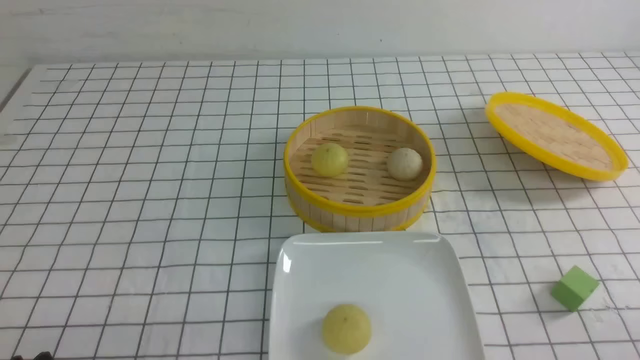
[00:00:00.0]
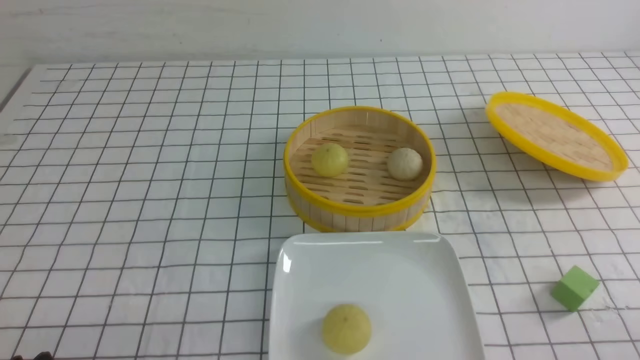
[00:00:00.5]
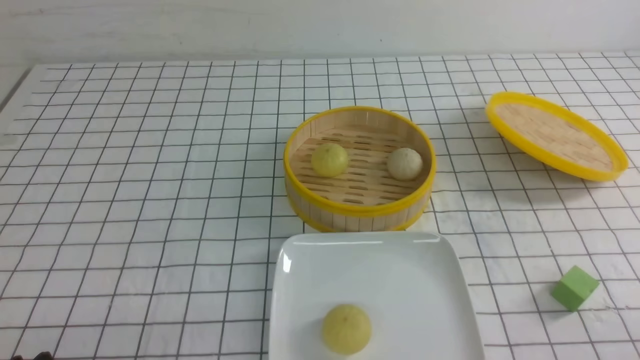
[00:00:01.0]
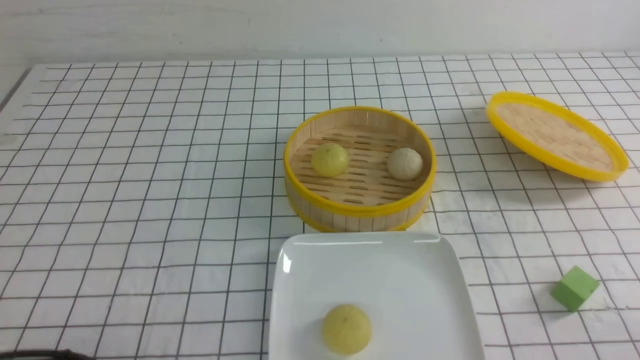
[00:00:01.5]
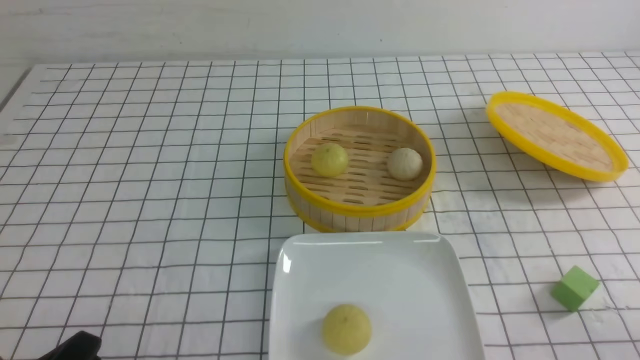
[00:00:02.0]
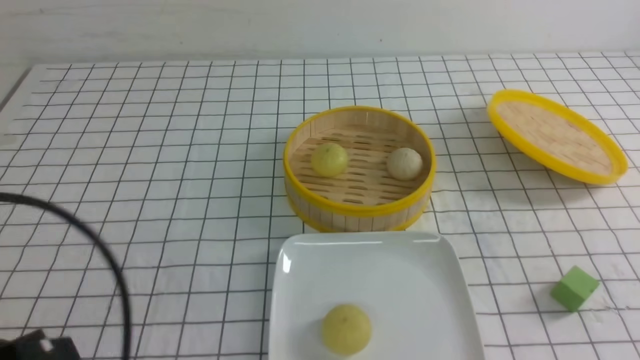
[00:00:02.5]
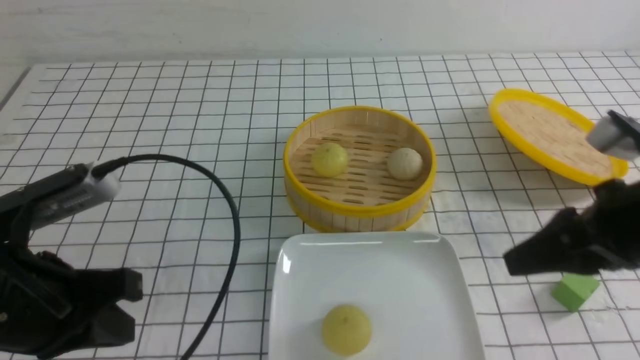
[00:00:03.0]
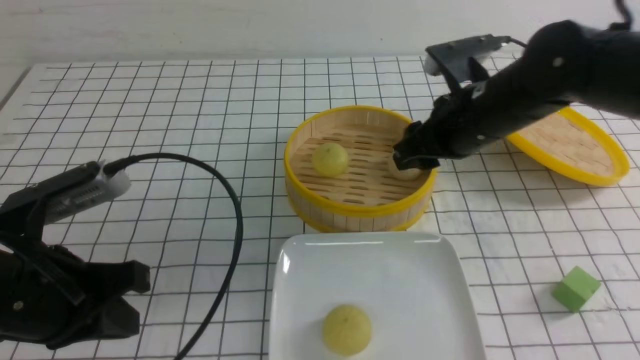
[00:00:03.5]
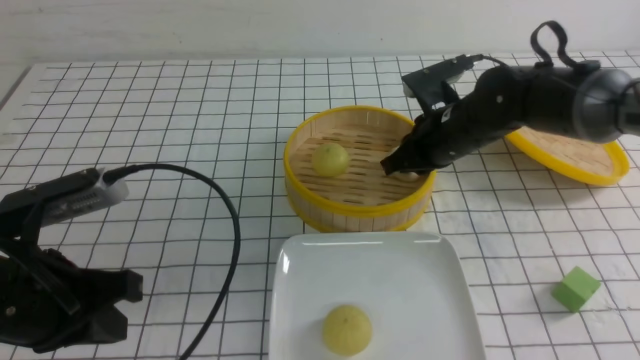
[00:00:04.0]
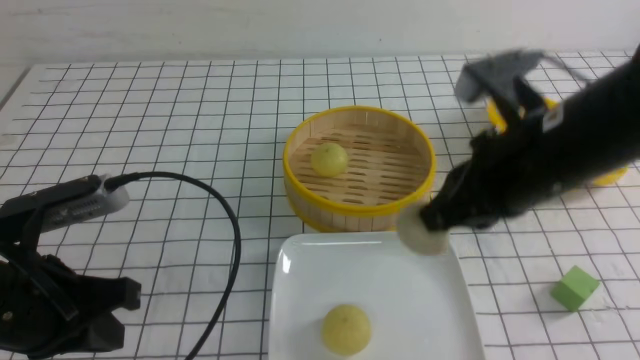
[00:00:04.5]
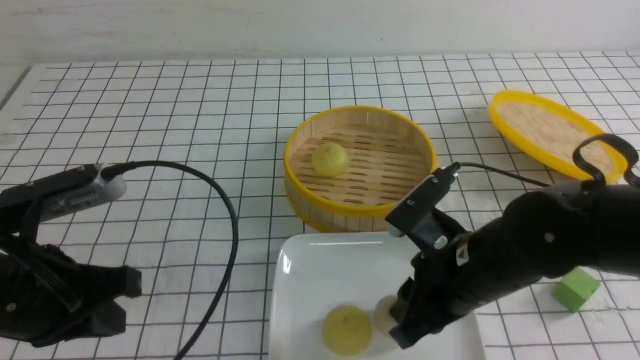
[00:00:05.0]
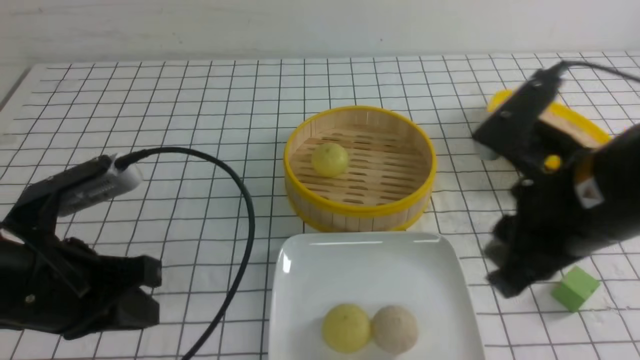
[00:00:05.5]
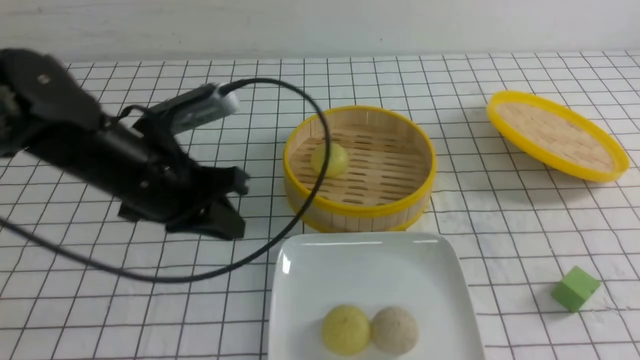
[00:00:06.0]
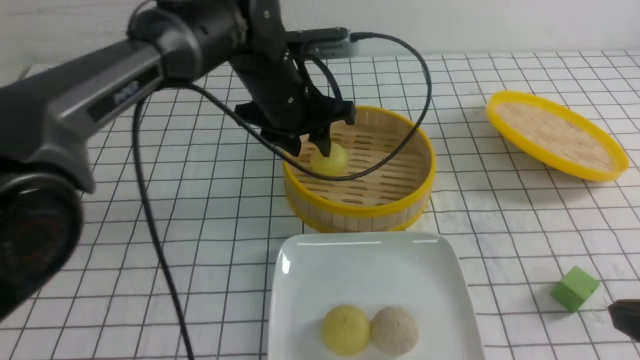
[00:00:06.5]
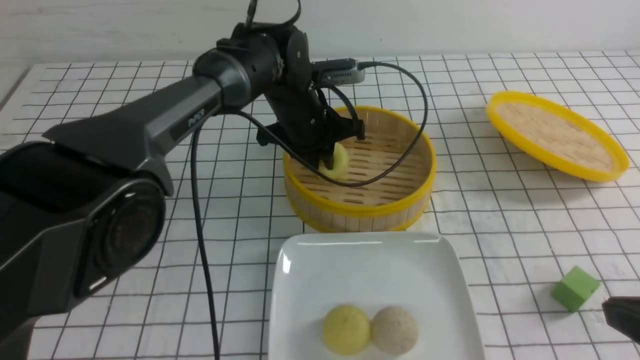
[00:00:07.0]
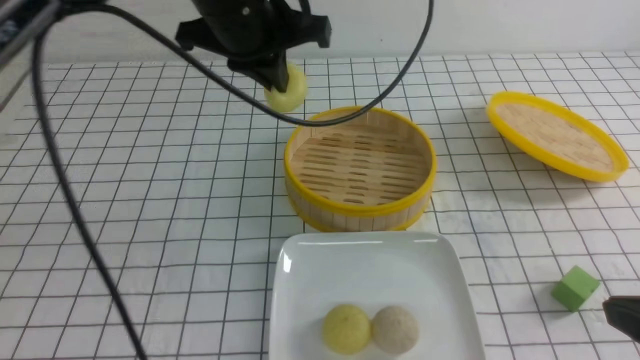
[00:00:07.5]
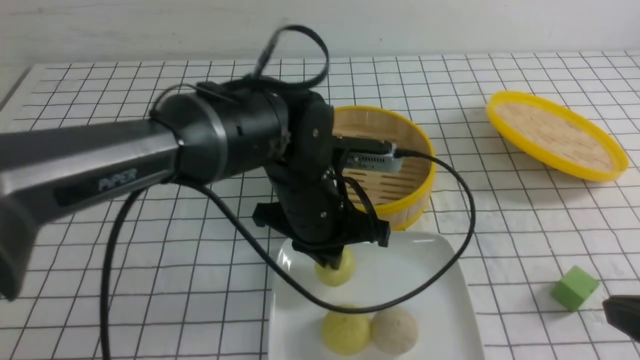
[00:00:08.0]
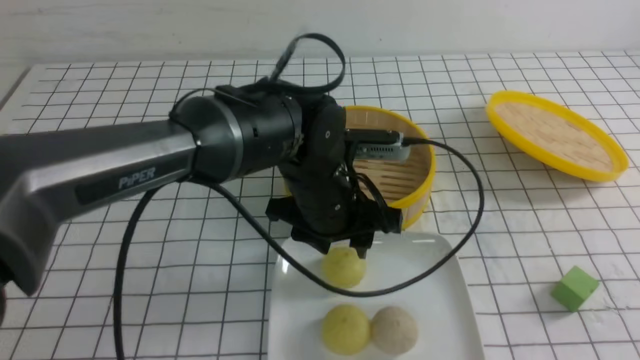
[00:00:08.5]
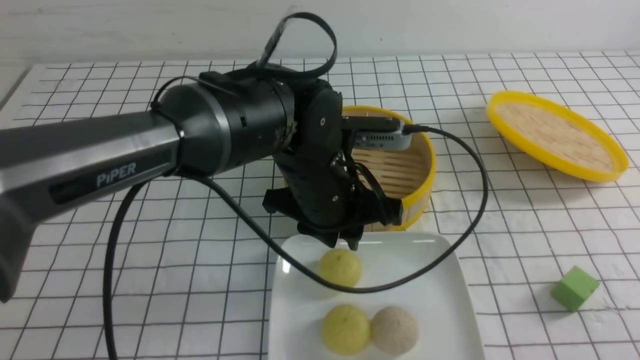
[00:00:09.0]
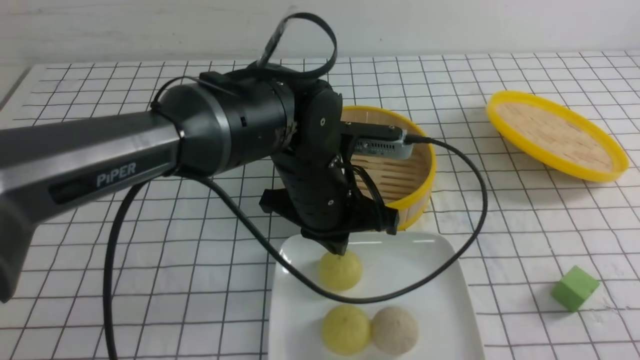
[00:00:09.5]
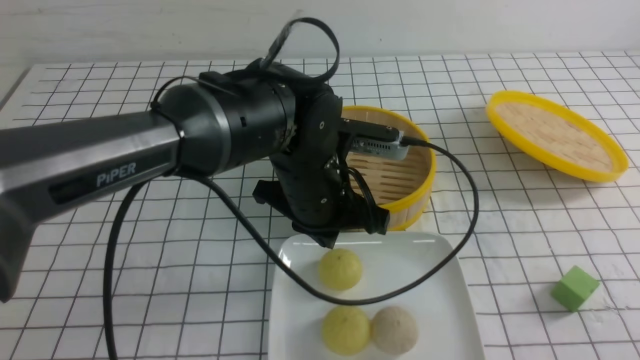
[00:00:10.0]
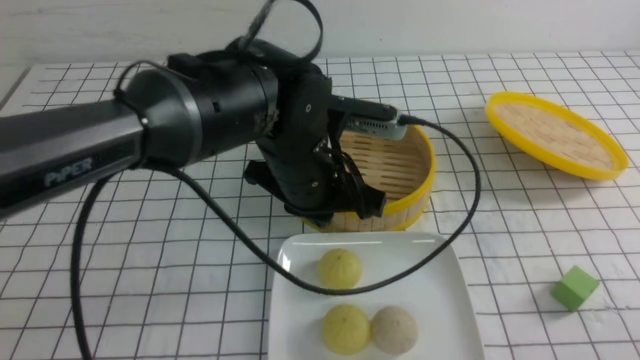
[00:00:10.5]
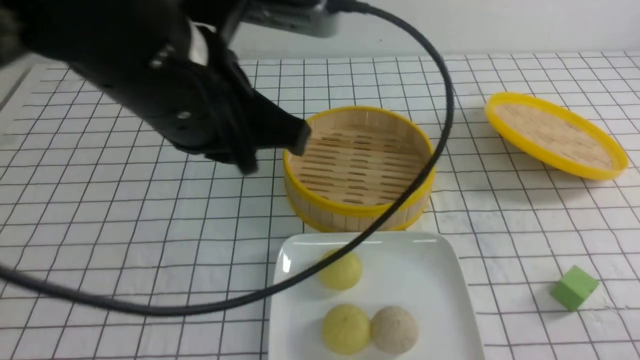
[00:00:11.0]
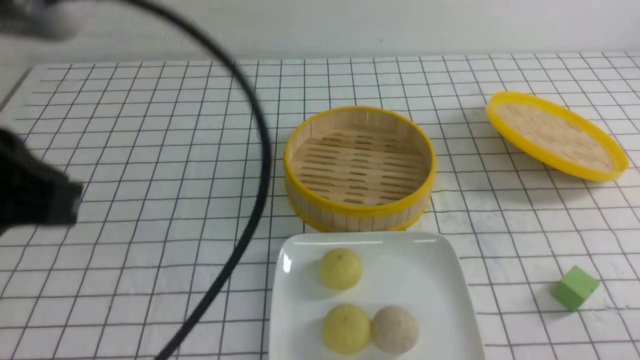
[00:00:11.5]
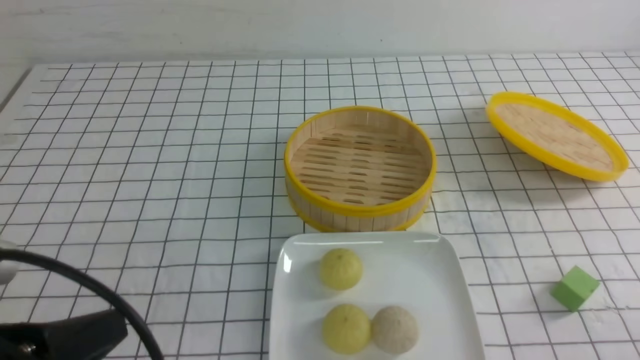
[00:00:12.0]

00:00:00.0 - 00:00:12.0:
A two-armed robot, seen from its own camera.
Step, 00:00:00.0 - 00:00:04.0: use the right arm to grab the steamed stuffed bun that is closest to it.
Step, 00:00:04.5 - 00:00:05.0: use the right arm to put the steamed stuffed bun into the plate.
Step, 00:00:05.5 - 00:00:07.0: use the left arm to grab the steamed stuffed bun that is closest to it.
Step, 00:00:07.5 - 00:00:08.5: use the left arm to put the steamed stuffed bun into the plate.
00:00:02.0 - 00:00:04.0: The right gripper heads forward and to the left, covering about 40 cm, and opens and closes again; the left gripper moves forward and upward, roughly 15 cm, and closes up.
00:00:04.0 - 00:00:06.0: The left gripper goes some 15 cm forward and to the right. The right gripper travels backward by approximately 30 cm.
00:00:06.0 - 00:00:08.0: The left gripper is displaced to the right by roughly 15 cm, moves roughly 15 cm forward and comes back, and opens and closes again. The right gripper moves some 5 cm.
00:00:08.0 - 00:00:10.0: The right gripper heads backward, covering about 5 cm. Meanwhile the left gripper opens, then closes again.
00:00:10.0 - 00:00:12.0: The left gripper heads backward and to the left, covering roughly 30 cm. Meanwhile the right gripper heads downward, covering about 10 cm.

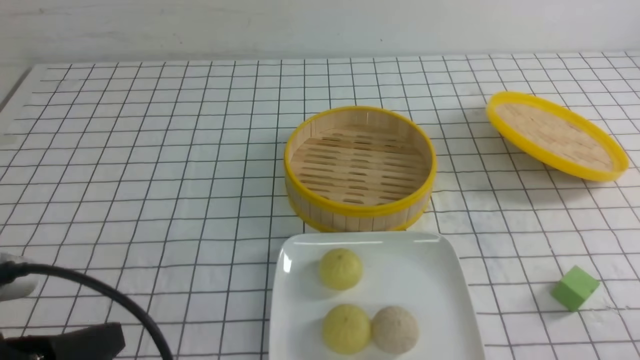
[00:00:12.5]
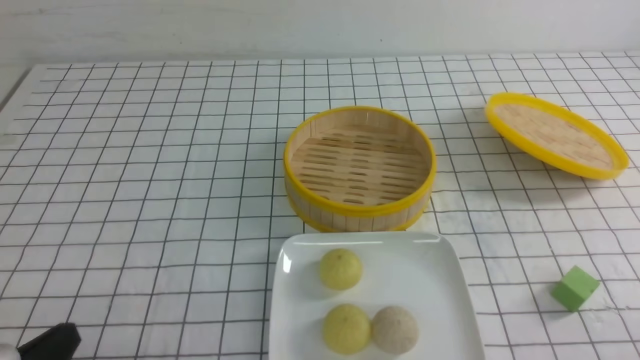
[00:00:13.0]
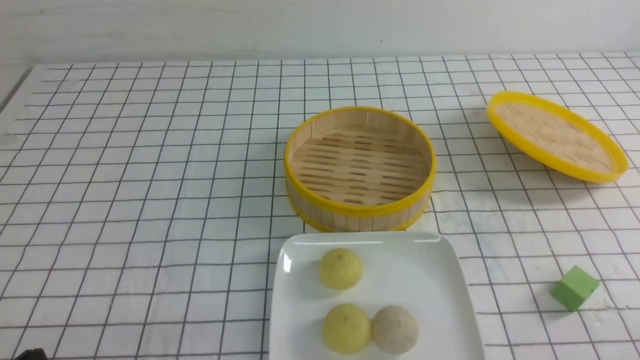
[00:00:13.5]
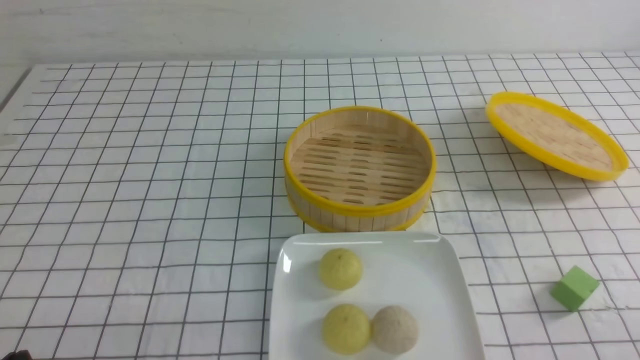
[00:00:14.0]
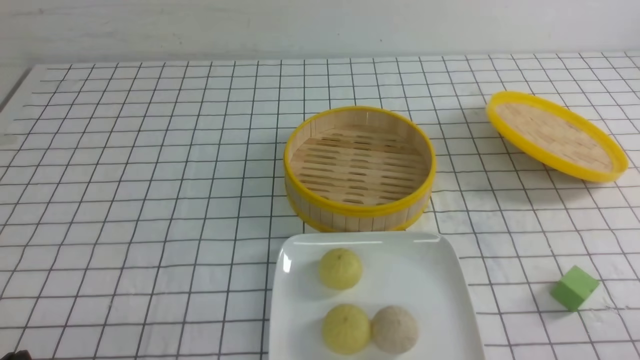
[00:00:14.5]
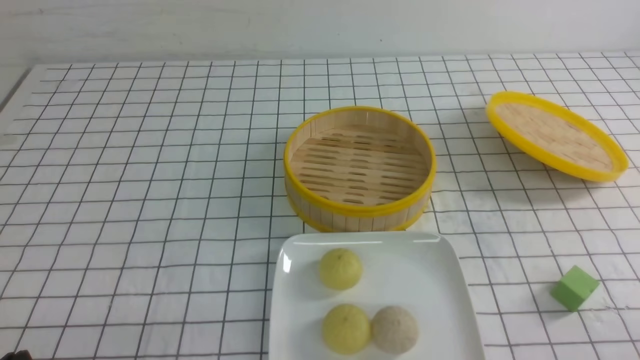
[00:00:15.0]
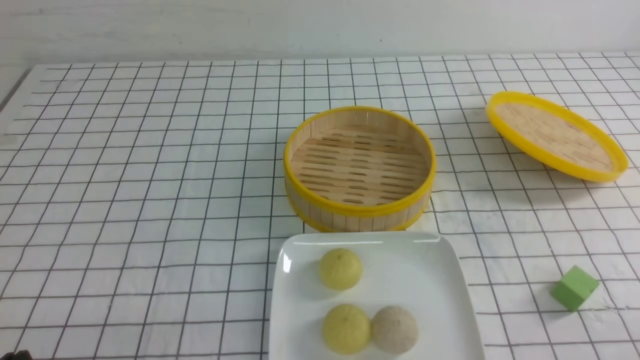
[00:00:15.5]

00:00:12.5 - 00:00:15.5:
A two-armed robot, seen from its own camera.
00:00:12.5 - 00:00:14.0: The left gripper goes approximately 10 cm downward.
00:00:14.0 - 00:00:15.5: Both grippers stay about where they are.
